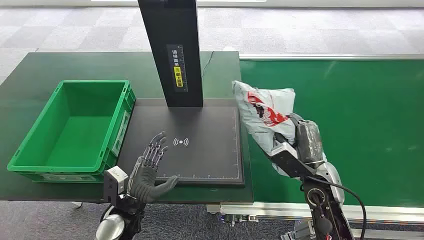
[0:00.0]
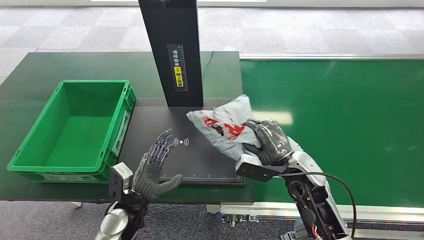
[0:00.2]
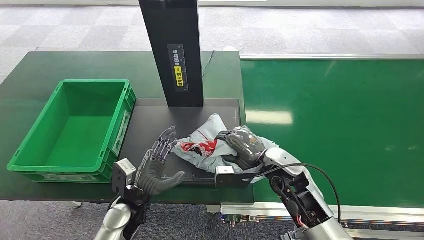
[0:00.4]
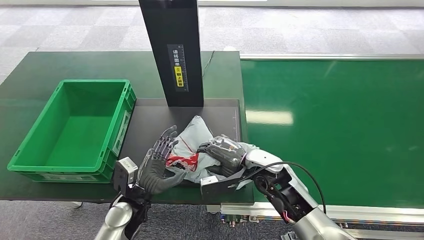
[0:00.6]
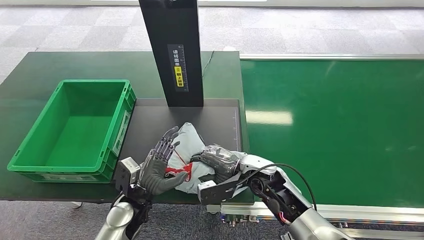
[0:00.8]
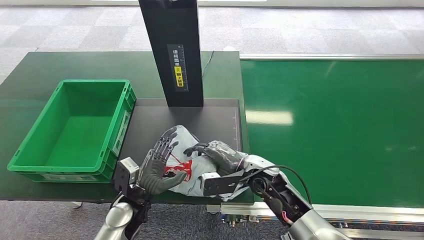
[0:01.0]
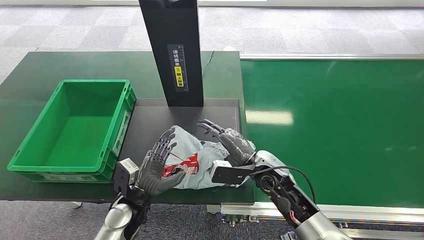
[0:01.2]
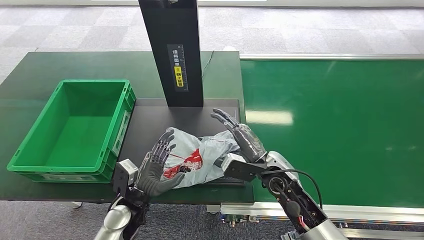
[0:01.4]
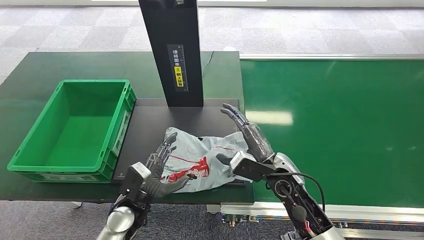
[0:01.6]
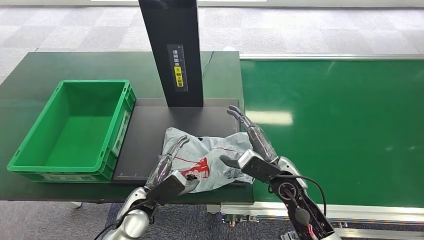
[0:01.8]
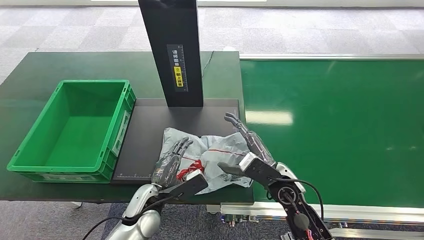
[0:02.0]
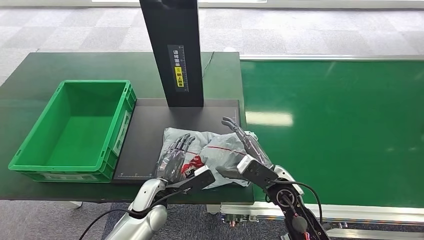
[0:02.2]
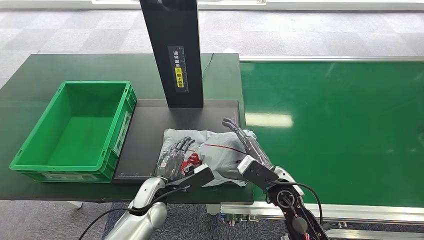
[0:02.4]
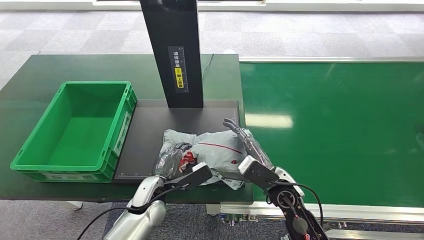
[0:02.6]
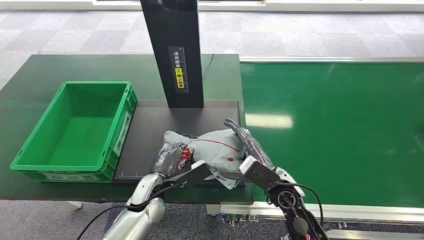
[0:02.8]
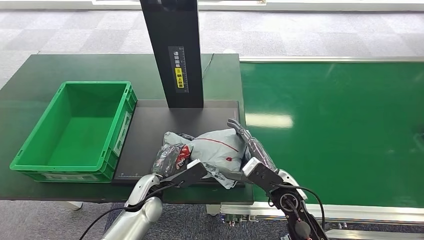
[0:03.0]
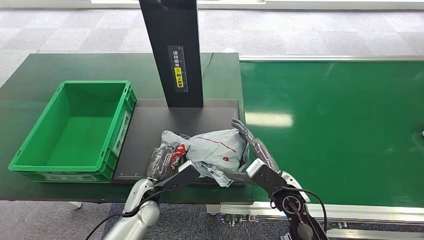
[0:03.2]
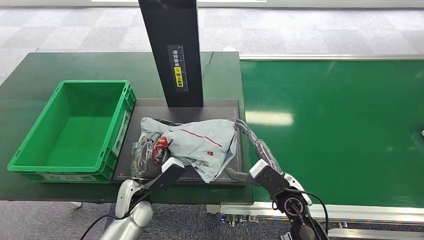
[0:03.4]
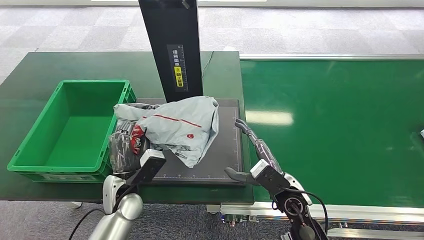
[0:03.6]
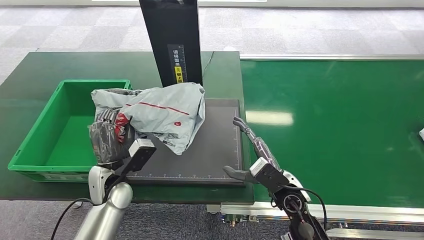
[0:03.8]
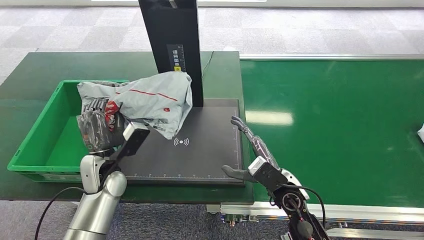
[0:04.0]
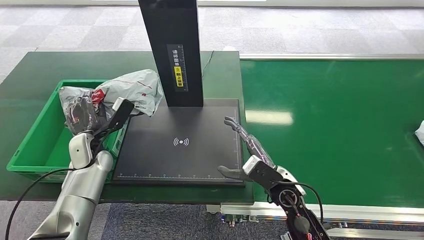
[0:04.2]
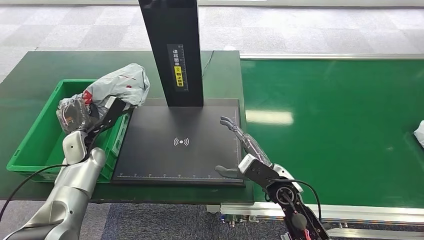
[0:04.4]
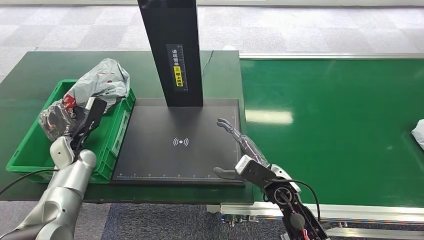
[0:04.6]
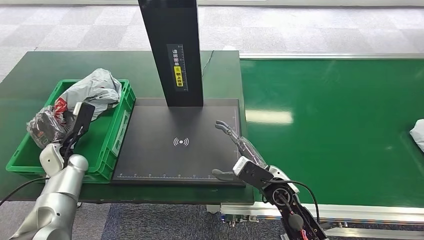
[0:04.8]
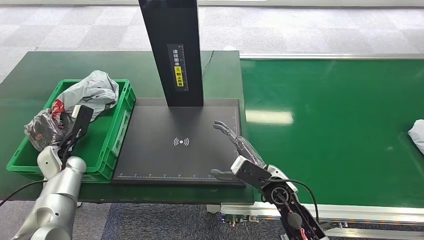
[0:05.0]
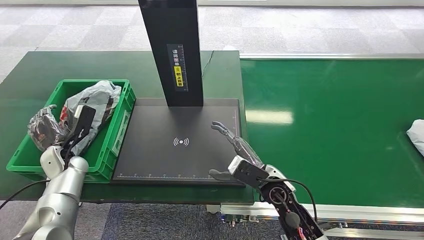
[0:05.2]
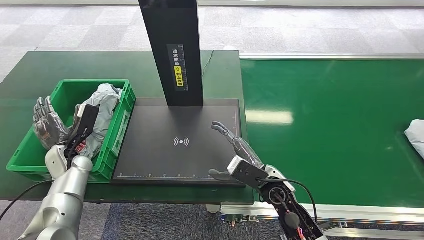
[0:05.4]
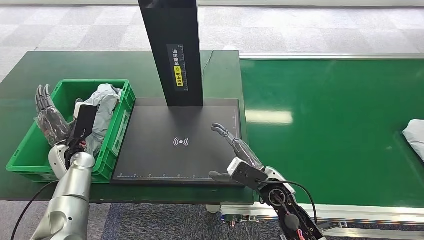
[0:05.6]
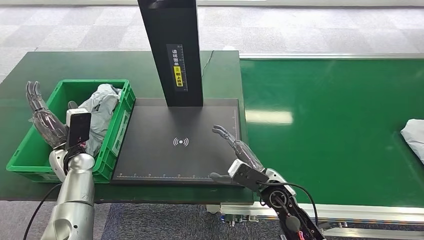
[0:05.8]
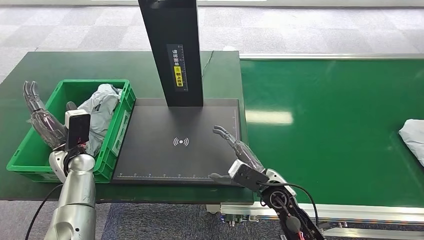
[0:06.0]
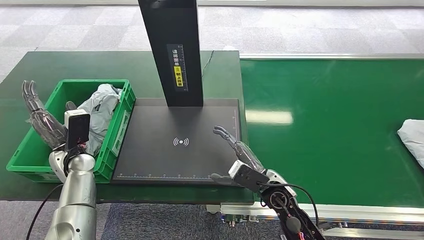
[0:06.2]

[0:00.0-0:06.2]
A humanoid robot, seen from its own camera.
Task of the whole recording: Weigh the package on the weighing device and place it in the left basket.
0:01.6 to 0:03.2: The right hand ends up roughly 5 cm from where it was.
